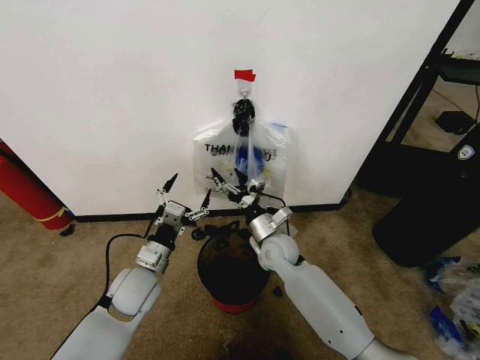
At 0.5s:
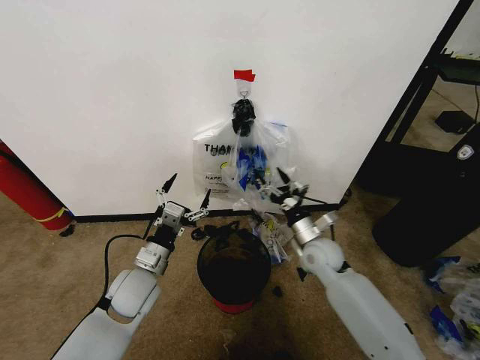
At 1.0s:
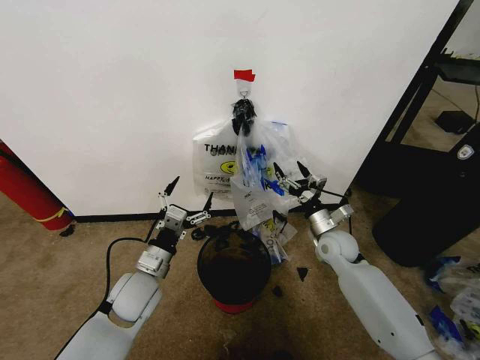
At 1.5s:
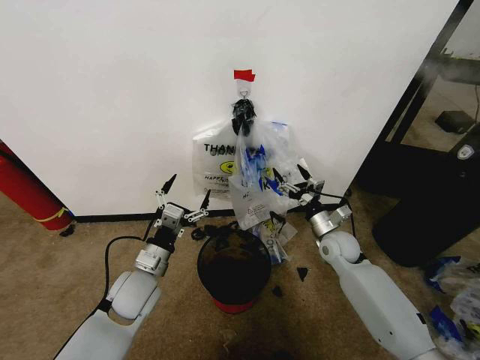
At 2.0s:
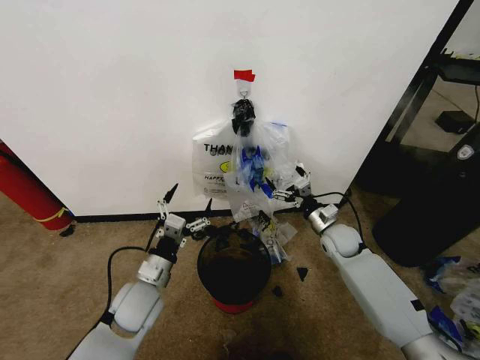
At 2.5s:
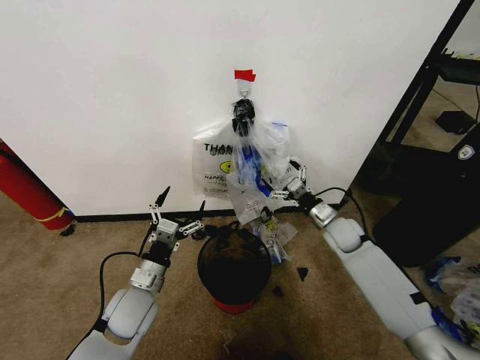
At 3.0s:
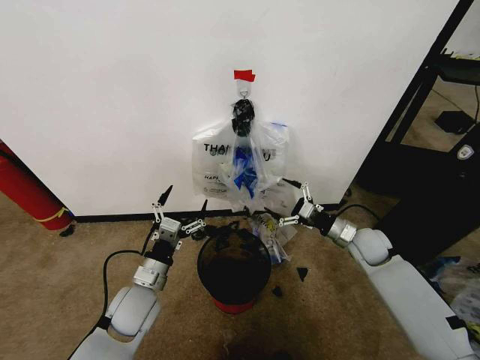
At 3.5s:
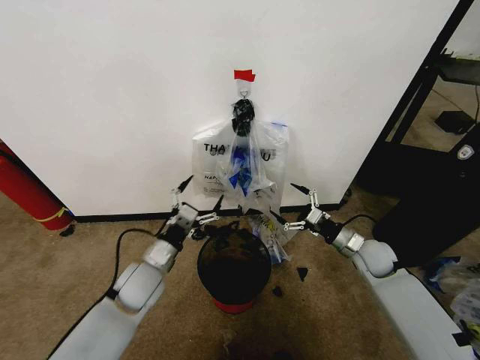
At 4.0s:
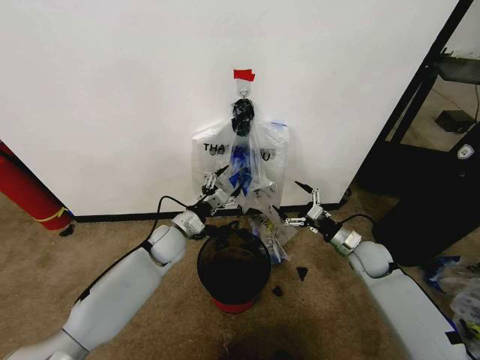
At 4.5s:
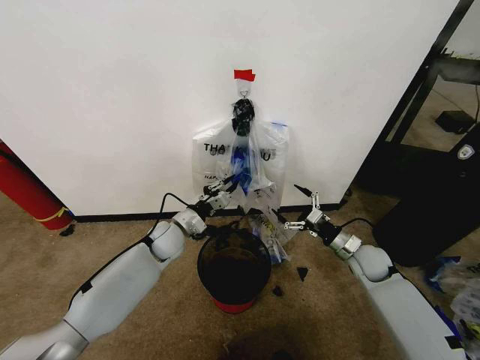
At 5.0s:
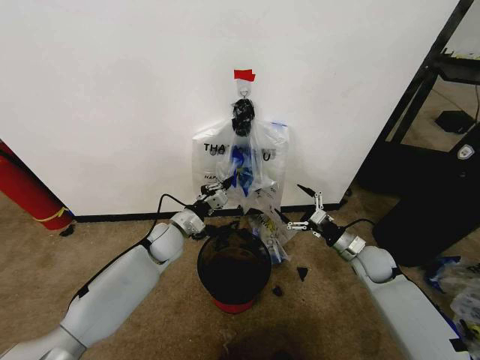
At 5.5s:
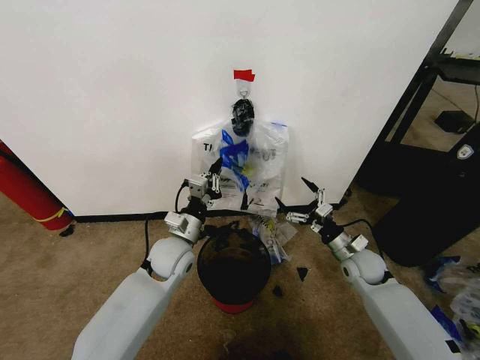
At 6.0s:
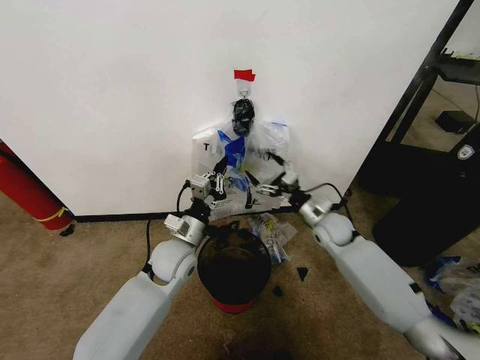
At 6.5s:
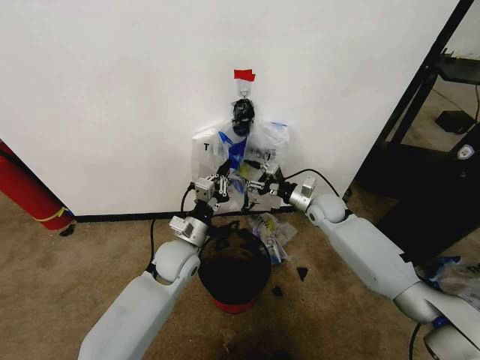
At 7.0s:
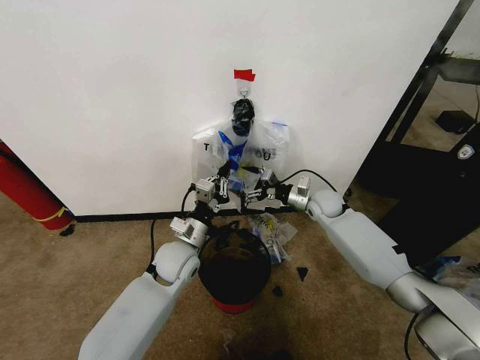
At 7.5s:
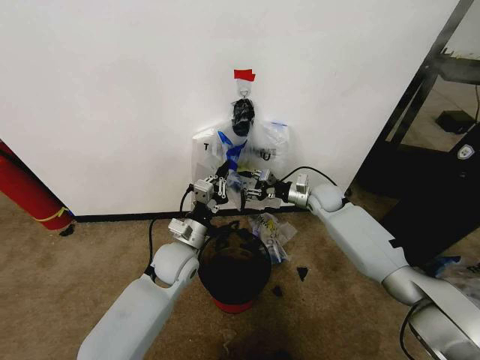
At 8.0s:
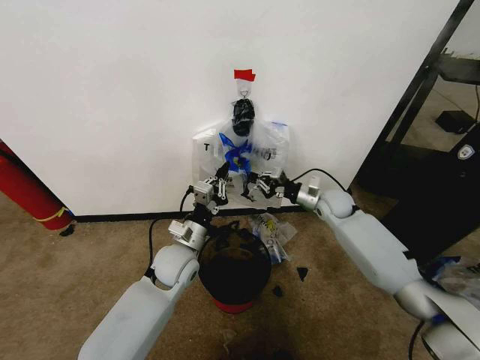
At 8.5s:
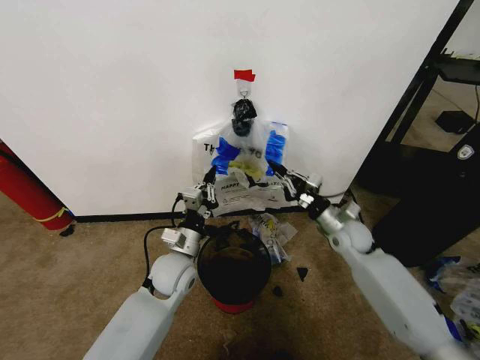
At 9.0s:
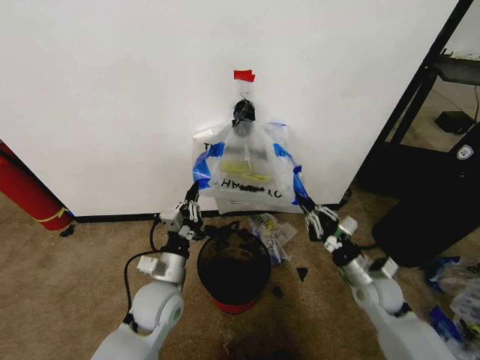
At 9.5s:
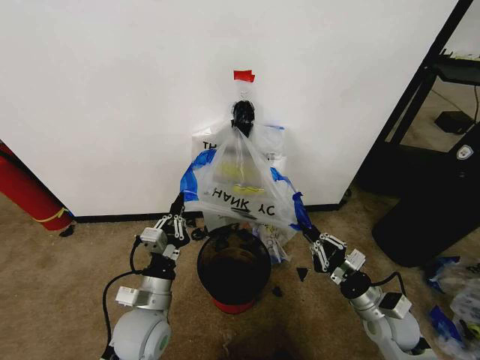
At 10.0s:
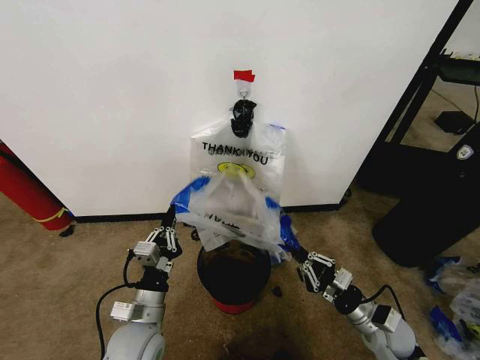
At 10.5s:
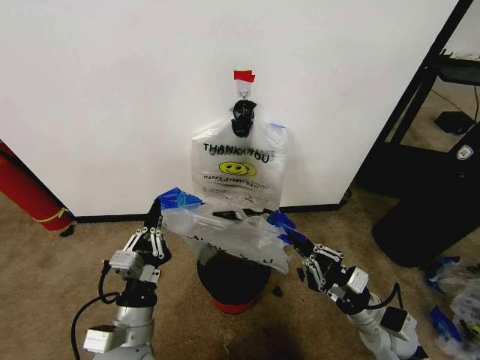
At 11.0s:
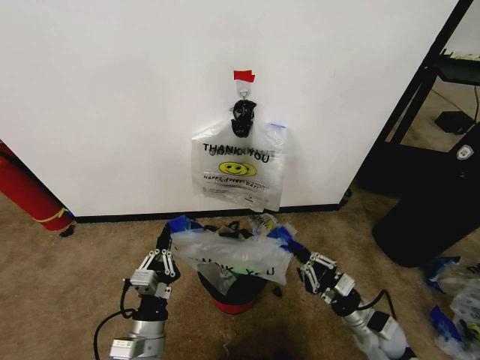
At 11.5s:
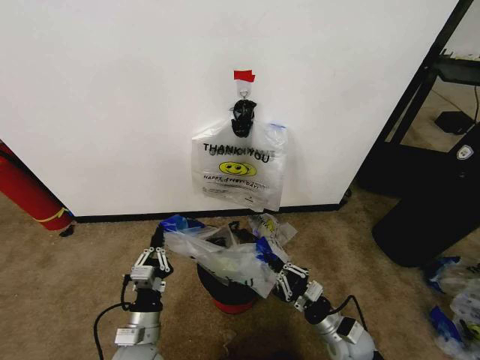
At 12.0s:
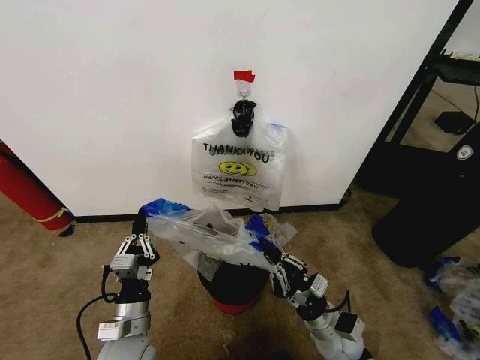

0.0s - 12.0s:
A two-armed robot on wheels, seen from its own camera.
Task of the whole recording: Pick up the garbage bag from the wall and place it over the trash bin.
0.0s - 2.0s: The right gripper travels to the right by about 20 cm.
2.0s - 4.0s: The left gripper shifts about 15 cm forward, while the right gripper shifts some 5 cm to the right.
4.0s - 6.0s: The right gripper shifts approximately 10 cm to the left and forward, while the left gripper moves backward, approximately 5 cm, and closes up.
6.0s - 8.0s: The right gripper moves forward, about 5 cm, and closes its fingers.
8.0s - 10.0s: The left gripper is displaced backward by roughly 15 cm, while the right gripper travels backward by some 30 cm.
10.0s - 12.0s: The left gripper swings up and down, roughly 10 cm each way, with 2 reversals, while the right gripper goes approximately 10 cm to the left.

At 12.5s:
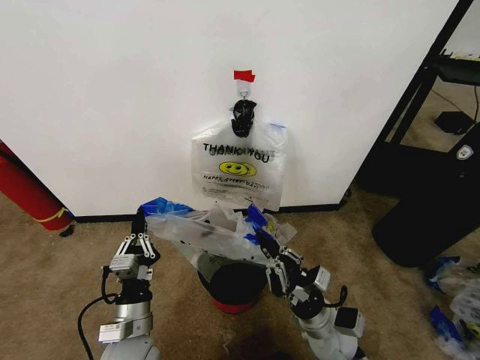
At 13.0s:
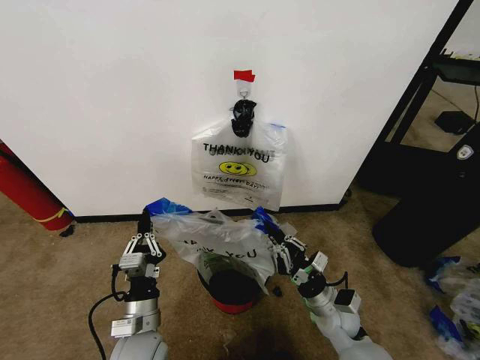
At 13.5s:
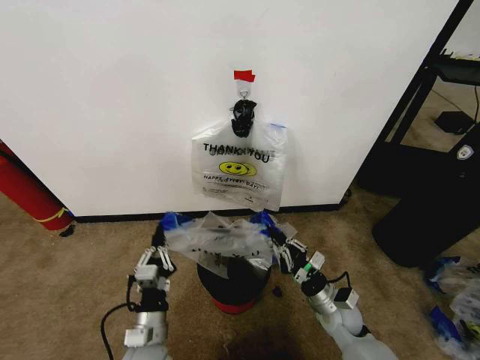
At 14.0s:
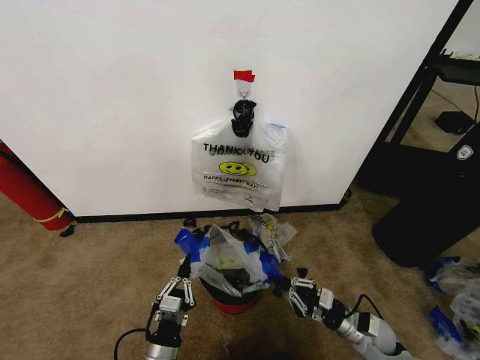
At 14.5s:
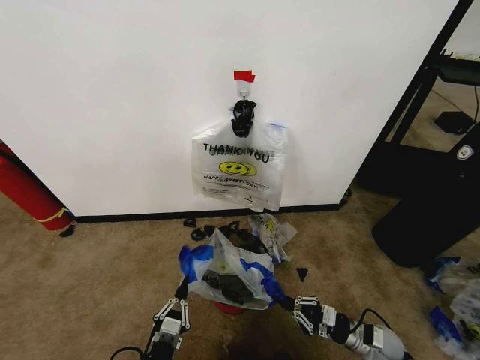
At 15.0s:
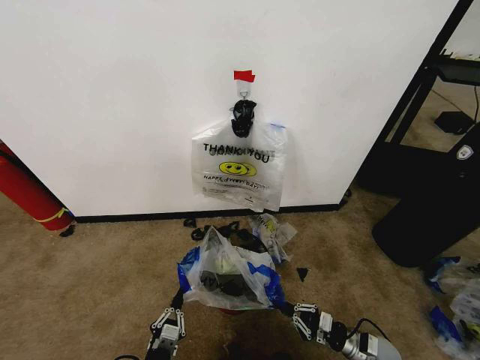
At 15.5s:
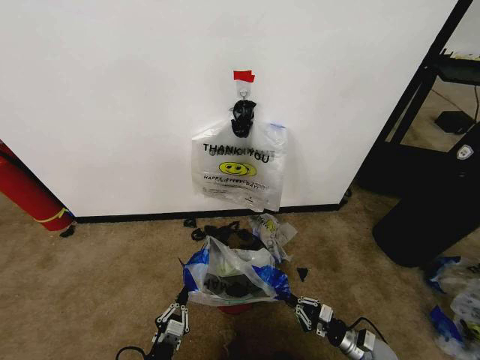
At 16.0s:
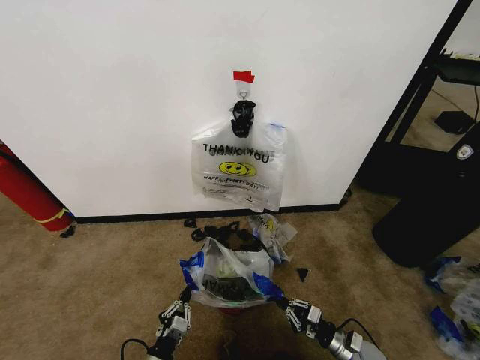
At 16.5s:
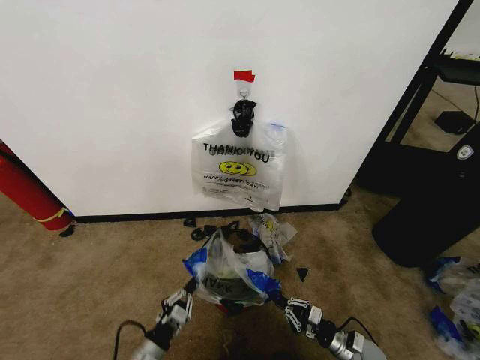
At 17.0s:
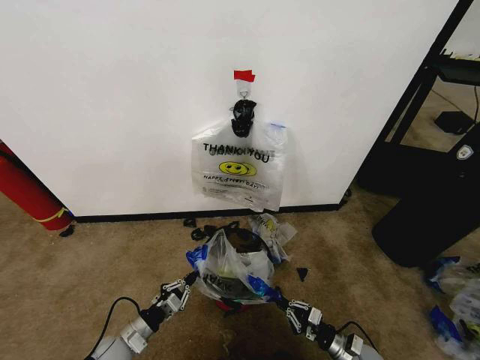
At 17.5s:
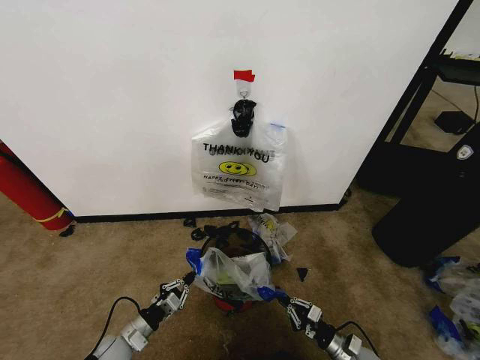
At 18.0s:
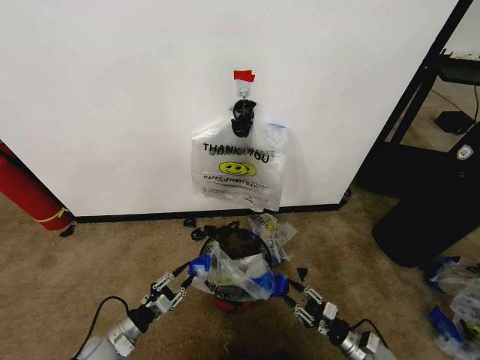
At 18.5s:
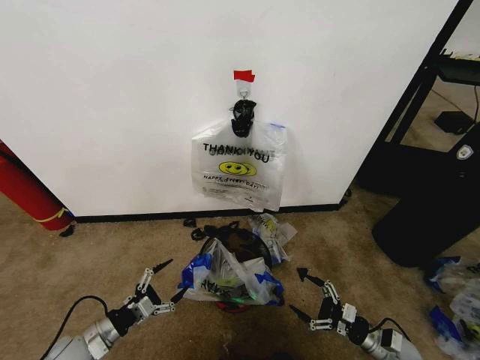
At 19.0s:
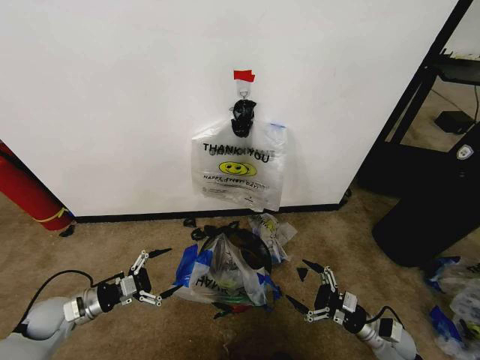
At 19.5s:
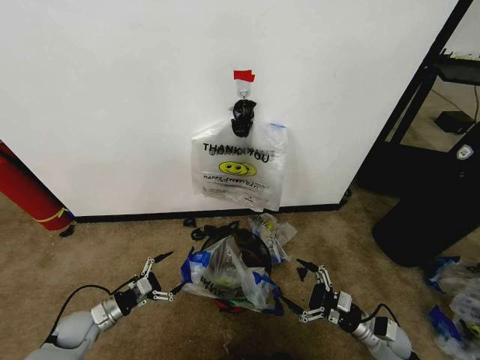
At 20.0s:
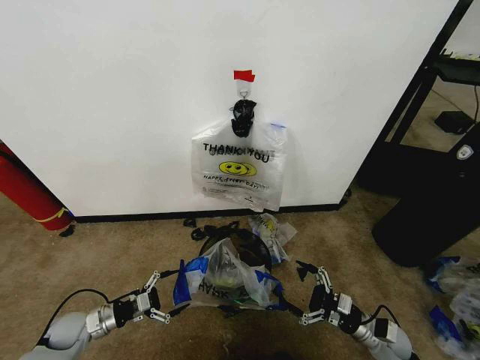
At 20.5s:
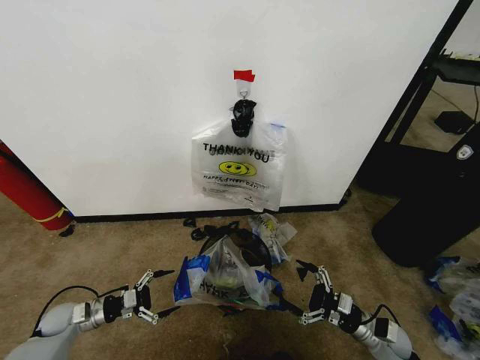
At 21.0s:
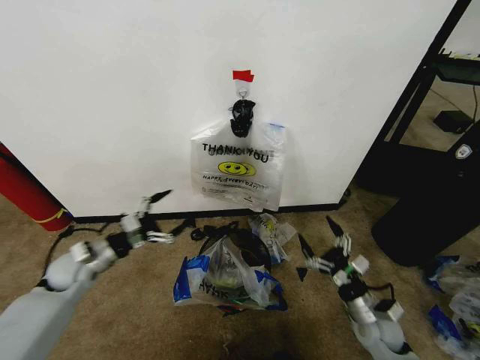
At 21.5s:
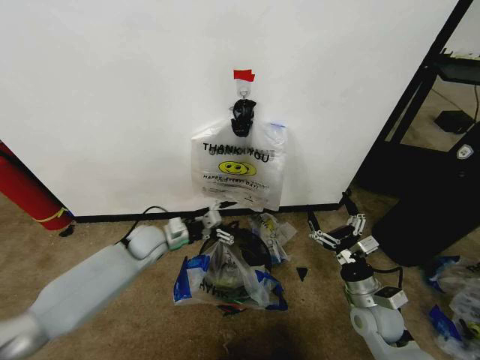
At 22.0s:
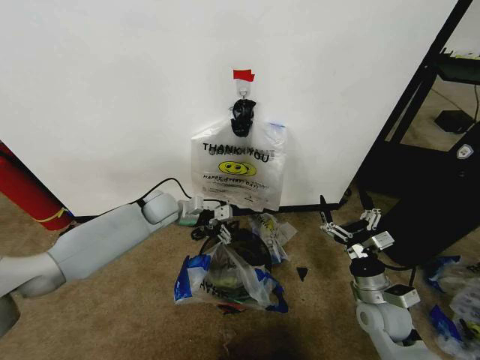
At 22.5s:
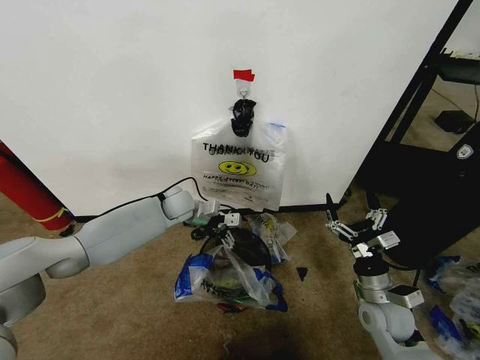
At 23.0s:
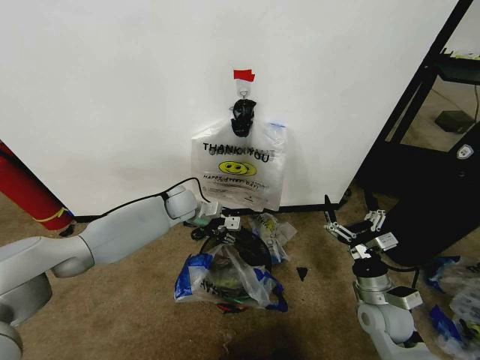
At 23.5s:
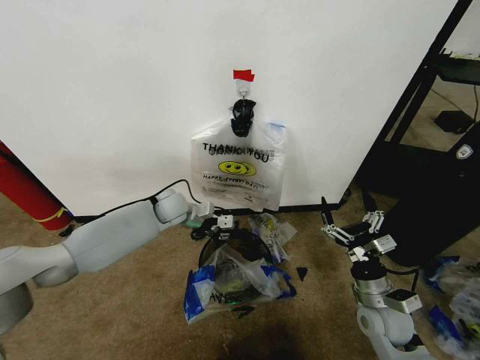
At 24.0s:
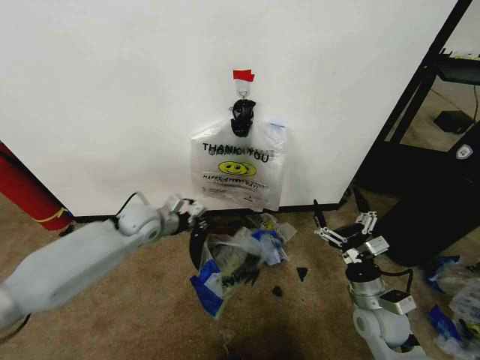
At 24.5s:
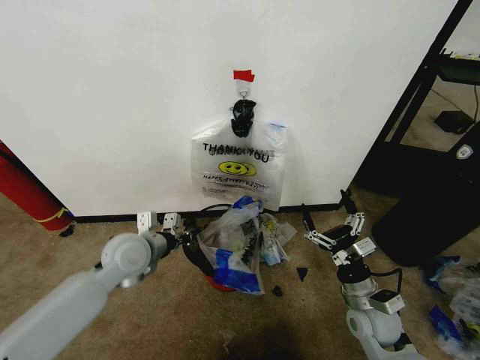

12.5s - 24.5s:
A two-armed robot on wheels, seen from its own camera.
Task of the whole recording: Pick up the garbage bag from the wall and place it over the trash bin.
12.5s - 14.5s: The right gripper heads to the right and downward, covering roughly 20 cm, while the left gripper heads downward and backward, covering about 15 cm.
14.5s - 16.5s: The right gripper moves downward, about 5 cm, while the left gripper heads forward, covering about 5 cm.
16.5s - 18.5s: The left gripper moves to the left, upward and forward, roughly 15 cm, and opens; the right gripper shifts roughly 5 cm to the right, and opens its fingers.
18.5s - 20.5s: The left gripper shifts about 10 cm forward and to the left; the right gripper goes roughly 5 cm upward.
20.5s - 22.5s: The right gripper goes roughly 10 cm upward; the left gripper heads to the right, forward and upward, covering some 40 cm.
22.5s - 24.5s: The left gripper travels backward by about 15 cm, and closes.

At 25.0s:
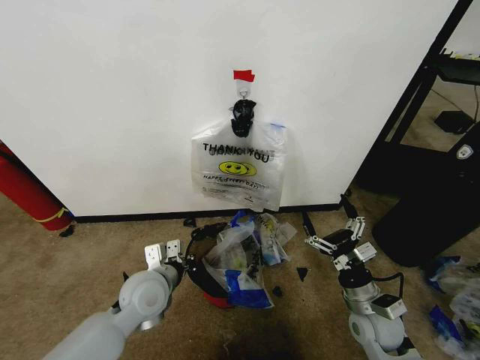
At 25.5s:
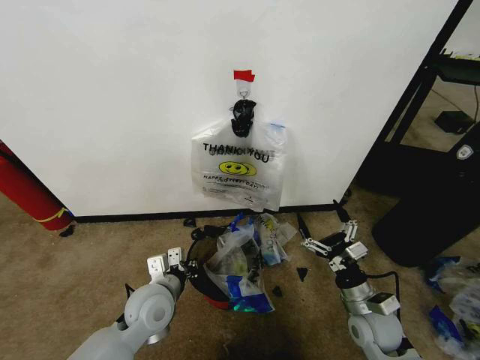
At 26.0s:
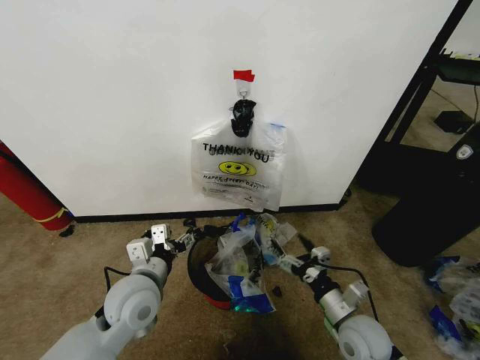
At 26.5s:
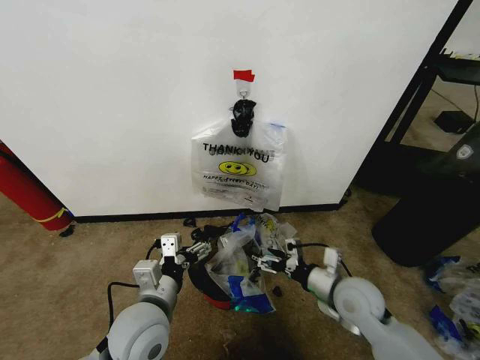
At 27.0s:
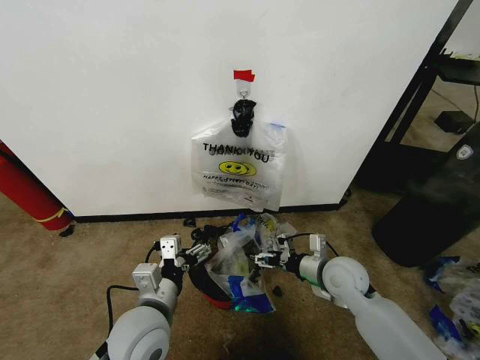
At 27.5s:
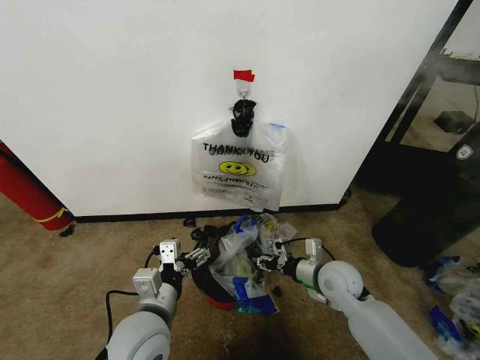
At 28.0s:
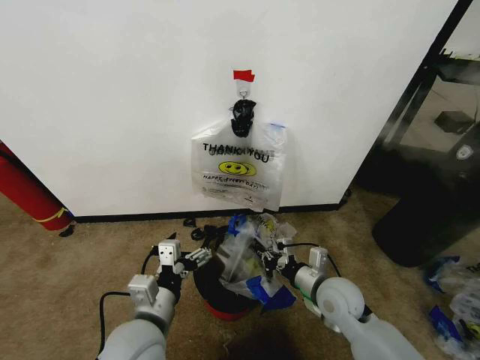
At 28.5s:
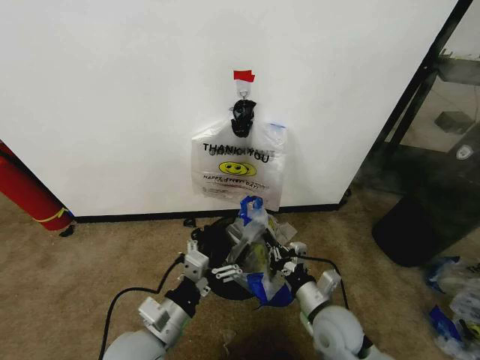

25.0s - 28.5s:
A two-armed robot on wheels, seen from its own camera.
Task of the whole recording: Pick up the garbage bag from the wall and place it over the trash bin.
25.0s - 27.0s: The left gripper goes about 10 cm backward, and opens its fingers. The right gripper travels forward and to the left by roughly 10 cm.
27.0s - 28.5s: The right gripper moves backward, roughly 10 cm, and closes up.
